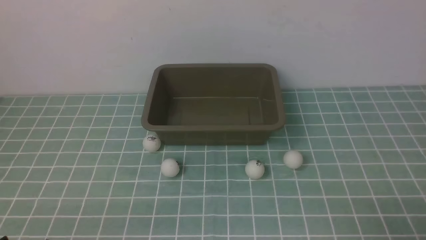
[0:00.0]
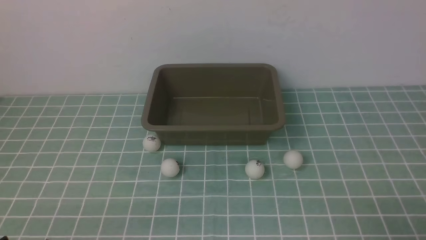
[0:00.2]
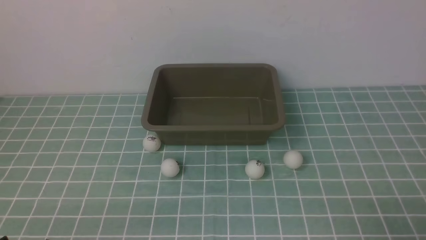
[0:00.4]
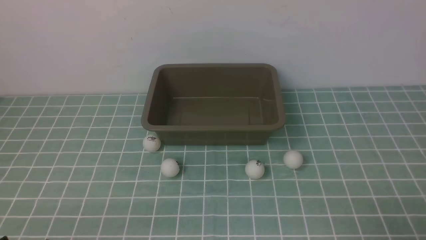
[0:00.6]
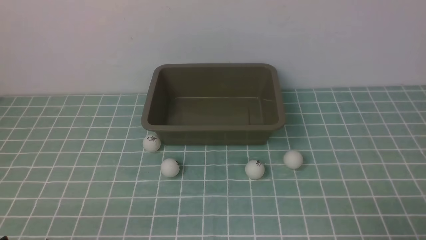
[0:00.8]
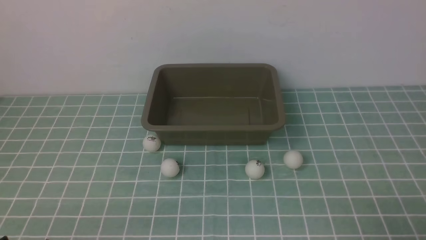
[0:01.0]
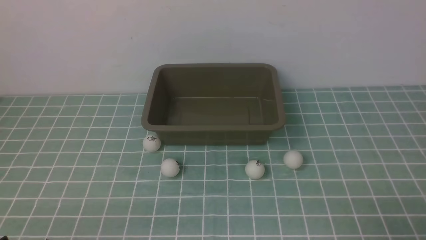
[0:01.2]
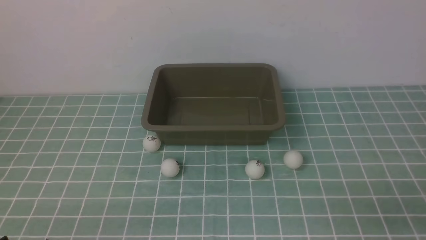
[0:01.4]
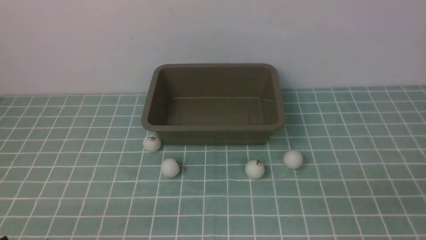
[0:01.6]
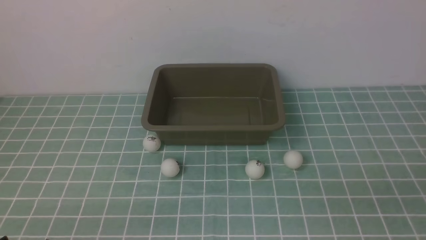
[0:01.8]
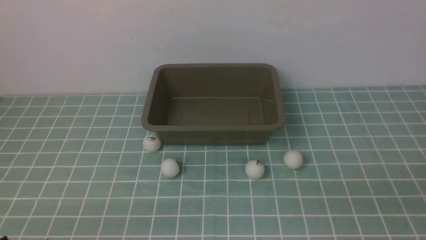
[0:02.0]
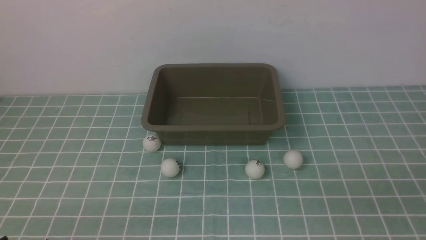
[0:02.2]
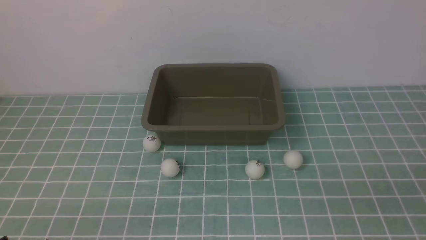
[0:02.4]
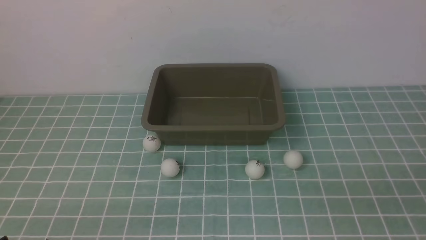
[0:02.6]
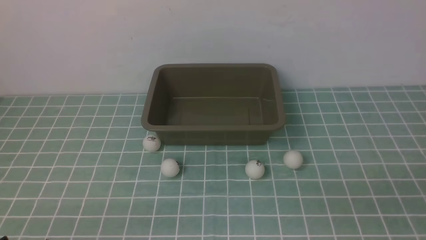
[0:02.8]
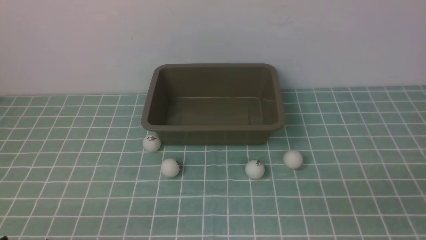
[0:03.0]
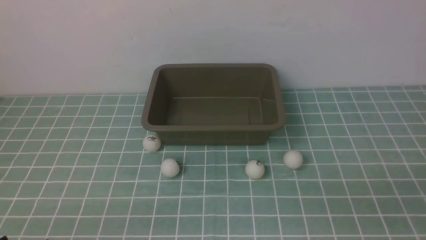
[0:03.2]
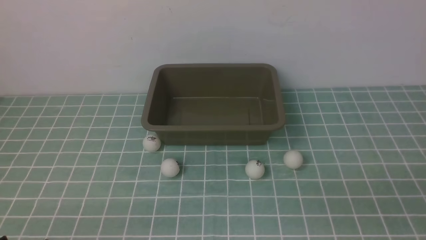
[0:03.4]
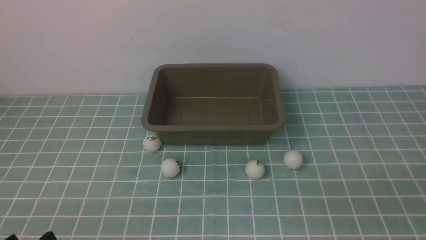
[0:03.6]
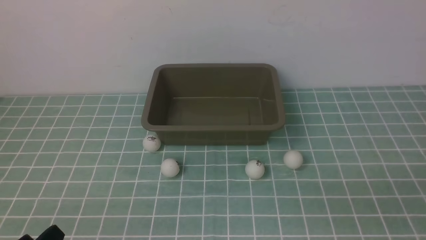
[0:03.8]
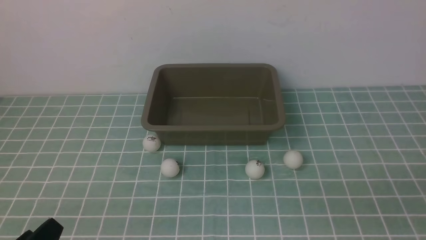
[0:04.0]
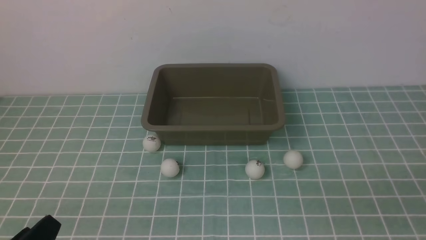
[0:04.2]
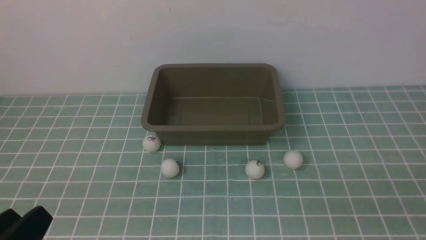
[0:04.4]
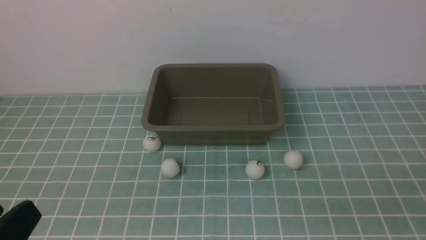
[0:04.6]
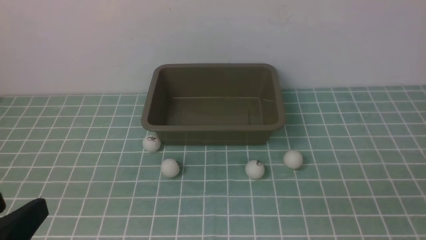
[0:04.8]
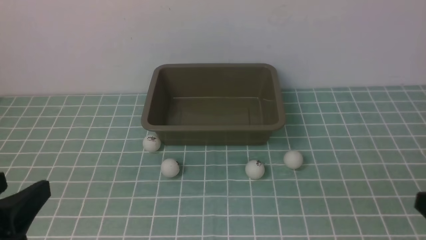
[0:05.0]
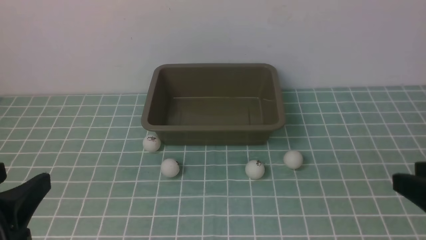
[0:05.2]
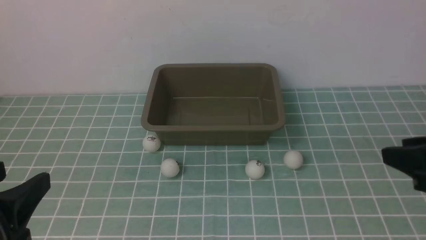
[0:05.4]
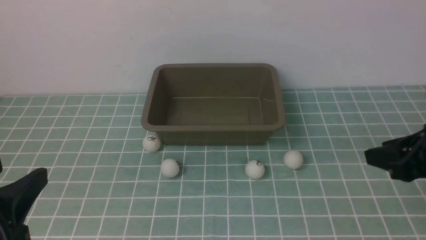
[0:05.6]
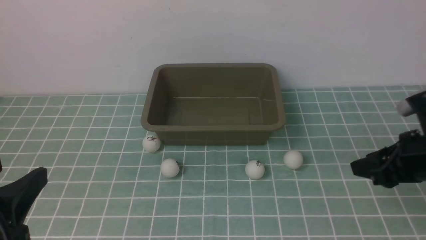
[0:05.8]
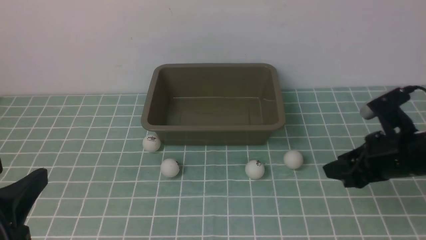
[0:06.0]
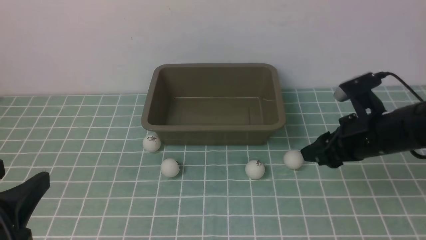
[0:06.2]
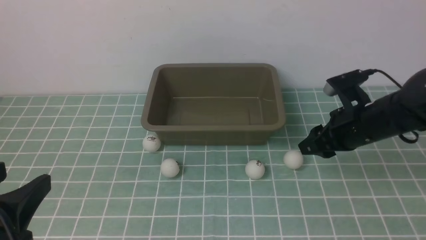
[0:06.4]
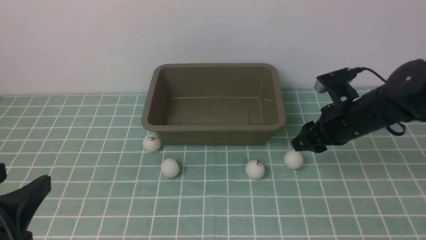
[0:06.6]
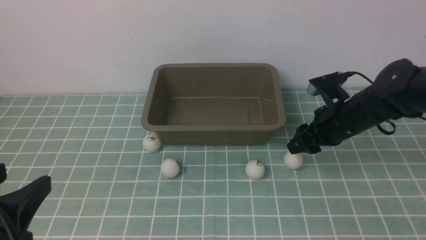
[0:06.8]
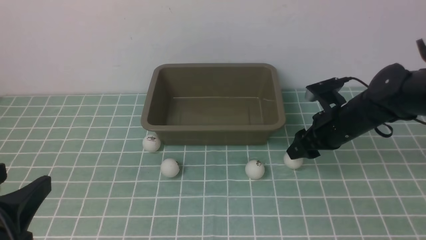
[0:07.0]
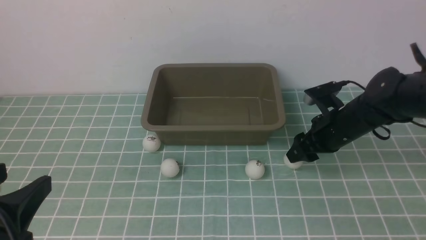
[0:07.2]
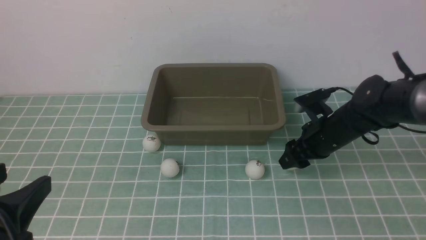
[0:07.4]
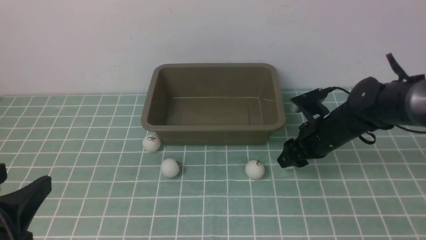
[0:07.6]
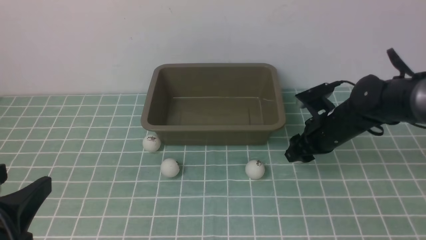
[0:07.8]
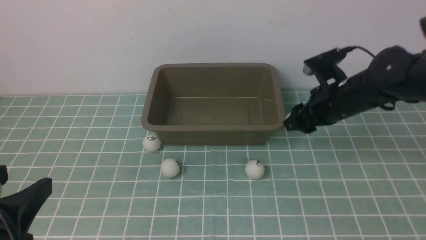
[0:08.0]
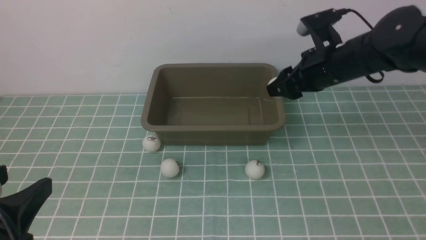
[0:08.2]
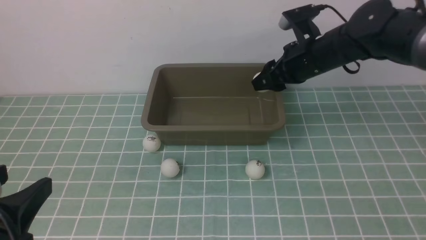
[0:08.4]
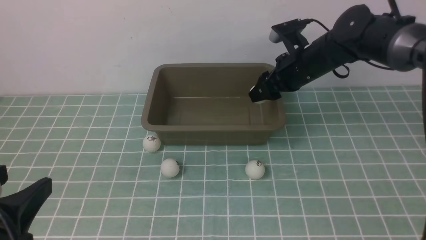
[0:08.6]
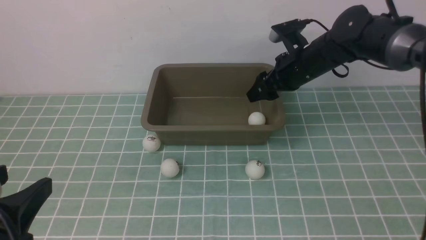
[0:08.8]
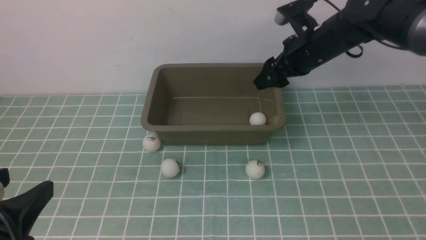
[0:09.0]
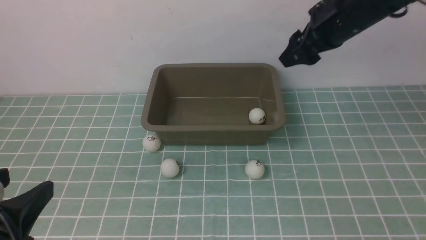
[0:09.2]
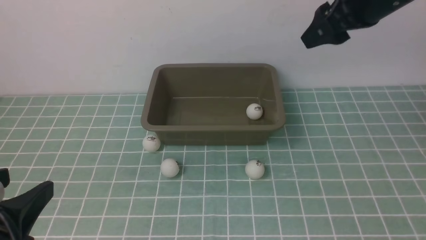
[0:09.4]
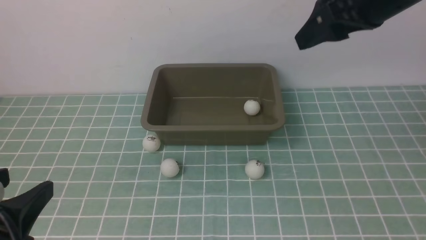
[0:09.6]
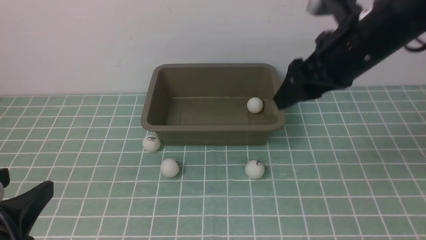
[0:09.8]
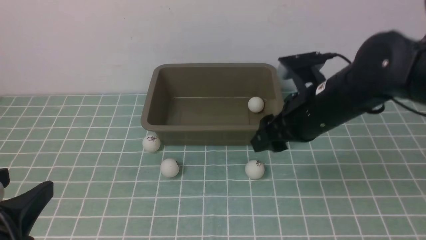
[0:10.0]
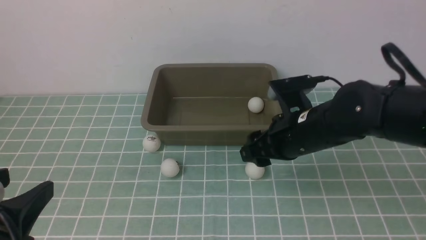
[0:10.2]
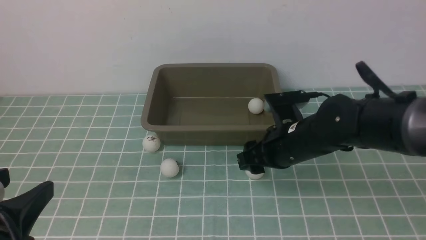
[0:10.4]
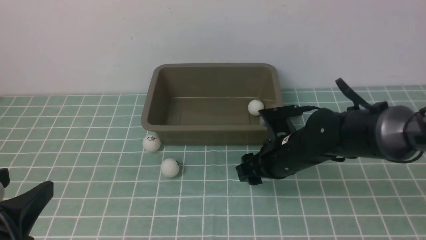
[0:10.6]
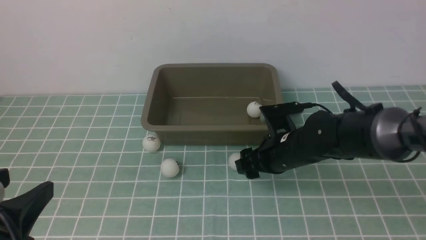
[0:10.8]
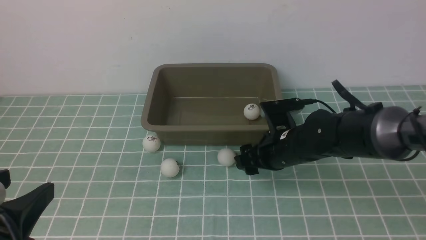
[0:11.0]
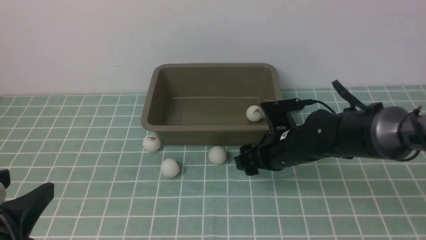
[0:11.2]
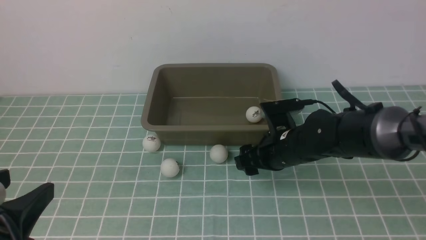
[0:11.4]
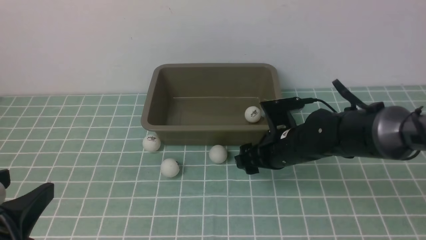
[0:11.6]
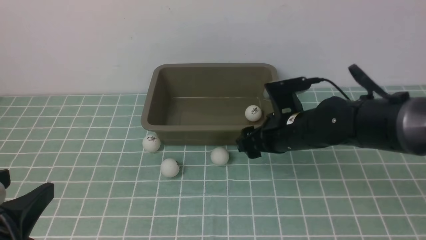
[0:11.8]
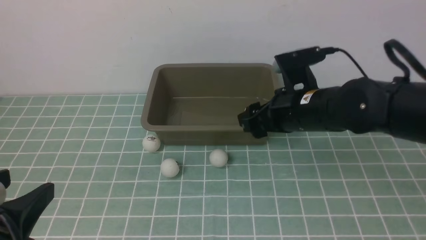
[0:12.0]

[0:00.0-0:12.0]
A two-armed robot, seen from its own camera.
Step, 0:00.0 to 0:08.0: use the right arm to clamp the table tennis ball closest to it.
Step, 0:08.2 to 0:09.0: use the right arm to put the table tennis ball into the box.
0:03.0 to 0:04.4: The left gripper moves upward, roughly 10 cm.
0:04.4 to 0:06.0: The left gripper moves approximately 5 cm. Meanwhile the right gripper is displaced forward by approximately 25 cm.
0:06.0 to 0:07.6: The right gripper is displaced forward and downward by some 10 cm.
0:07.6 to 0:09.0: The right gripper is displaced upward by some 15 cm.
0:09.0 to 0:10.4: The right gripper moves downward, backward and to the left, approximately 20 cm.
0:10.4 to 0:12.0: The right gripper travels upward by roughly 10 cm.

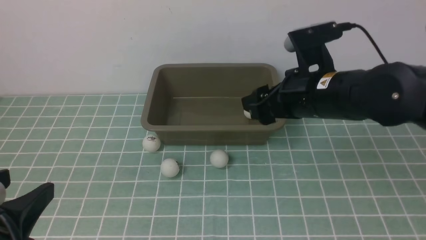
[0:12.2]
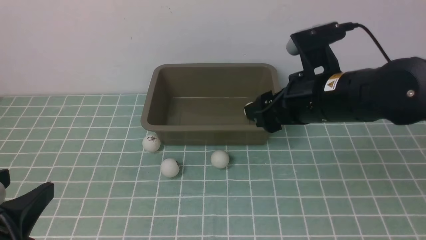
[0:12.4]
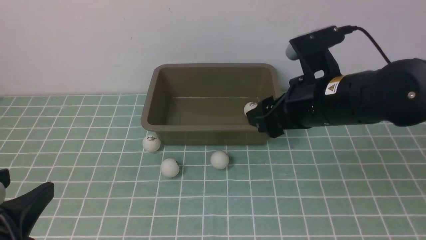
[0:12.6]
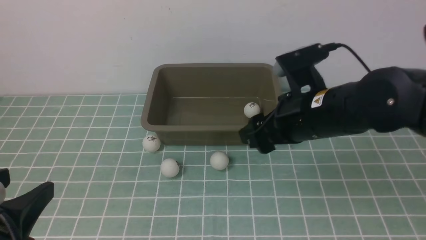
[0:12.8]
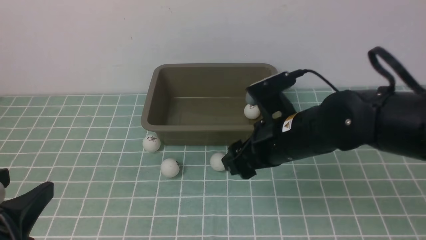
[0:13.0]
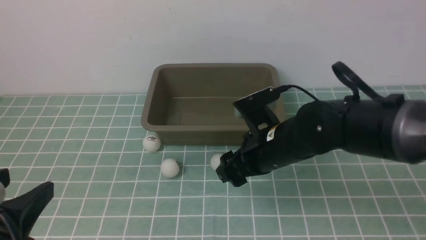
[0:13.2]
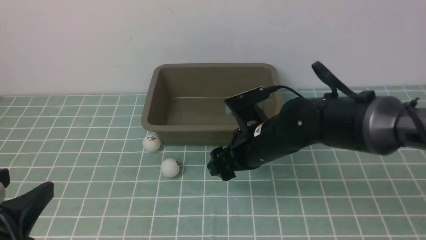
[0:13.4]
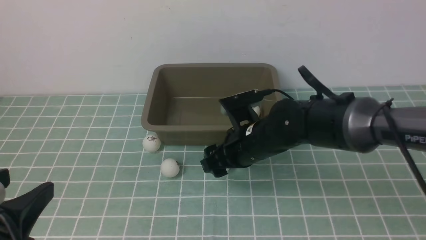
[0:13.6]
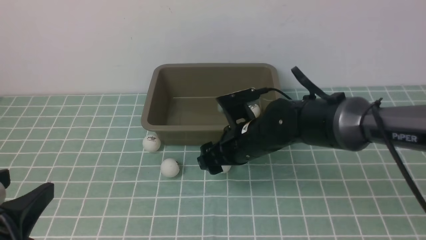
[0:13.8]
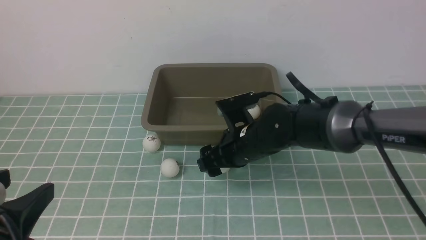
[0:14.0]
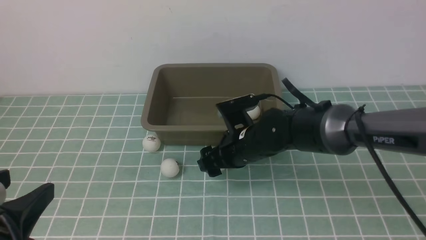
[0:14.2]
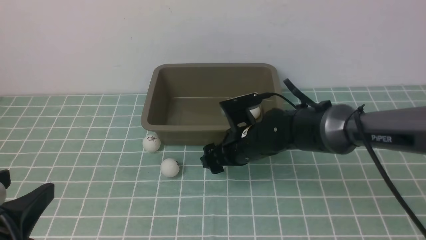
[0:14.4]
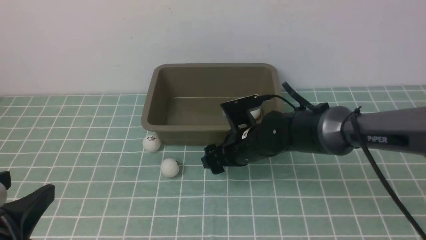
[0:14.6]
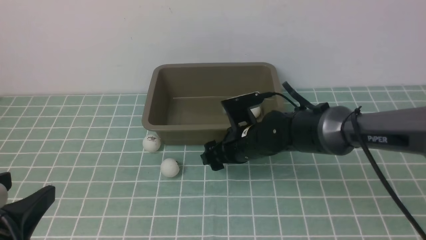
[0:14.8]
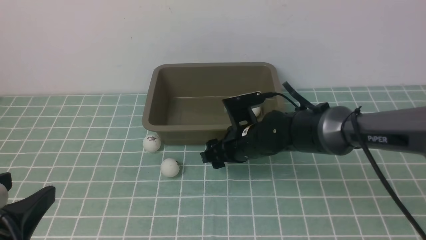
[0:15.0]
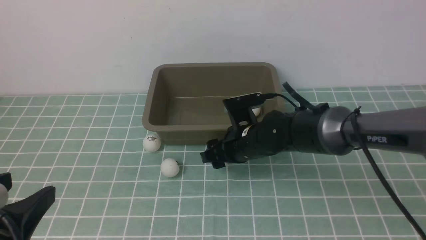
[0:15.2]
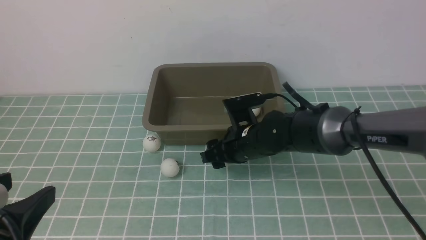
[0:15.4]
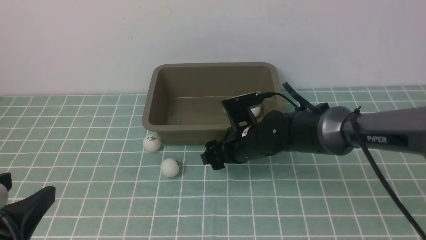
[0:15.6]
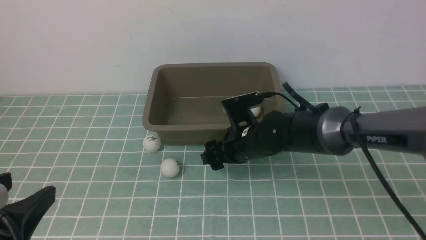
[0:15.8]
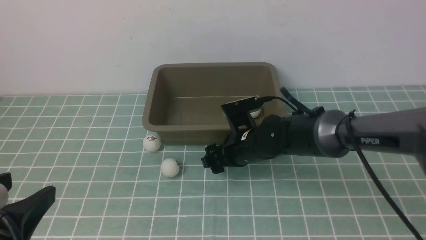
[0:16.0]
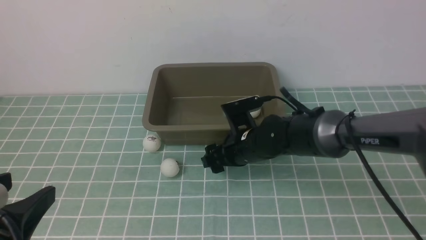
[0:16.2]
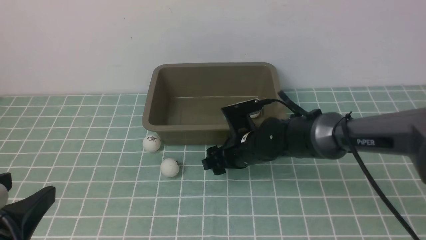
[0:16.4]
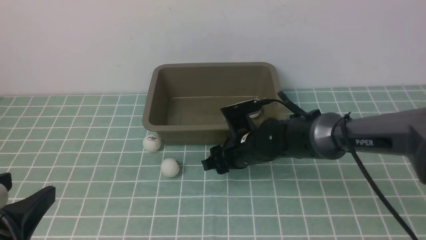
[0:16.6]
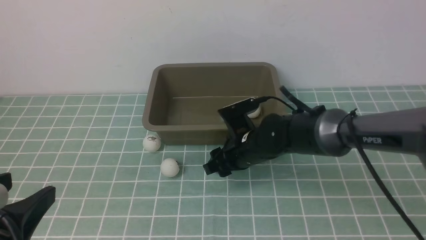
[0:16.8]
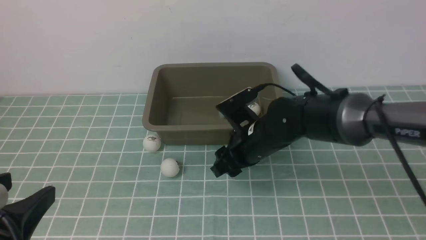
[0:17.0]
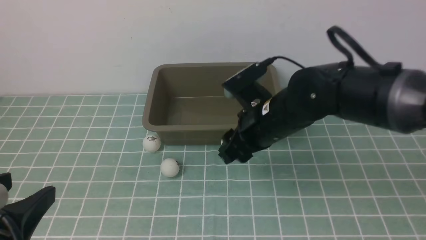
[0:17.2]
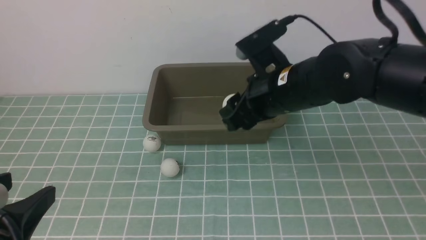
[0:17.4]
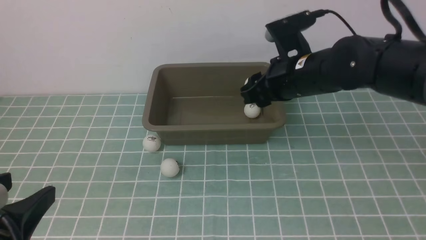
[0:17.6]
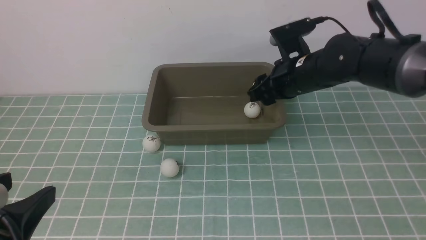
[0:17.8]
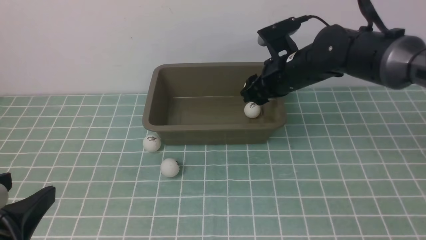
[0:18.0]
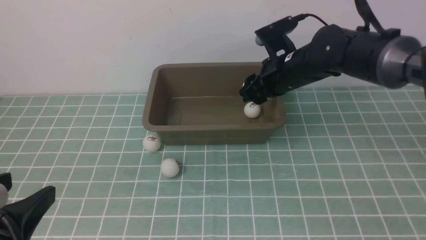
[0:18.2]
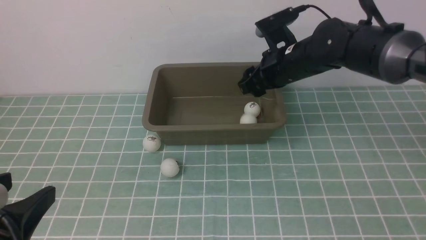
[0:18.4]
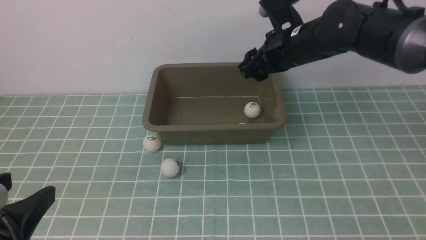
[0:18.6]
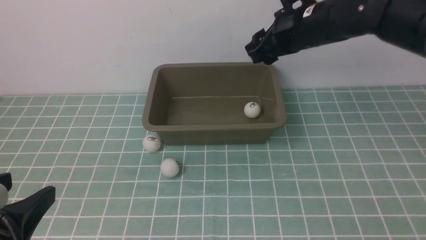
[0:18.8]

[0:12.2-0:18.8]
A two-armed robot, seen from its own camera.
Step, 0:12.2 to 0:17.0: use the right arm to clamp the table tennis ball closest to it.
Step, 0:17.2 to 0:18.6: use the right arm to put the table tennis ball into the box.
0:12.2 to 0:13.8: The right gripper goes roughly 15 cm downward and to the left.
0:13.8 to 0:15.4: There are only small adjustments of the grippers.
0:15.4 to 0:17.2: The right gripper is displaced upward by about 10 cm, and closes its fingers.
0:17.2 to 0:18.8: The right gripper is displaced upward and to the right by approximately 20 cm.
